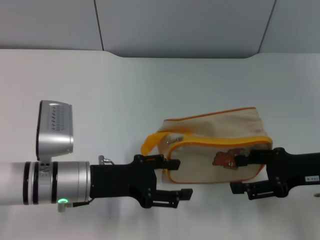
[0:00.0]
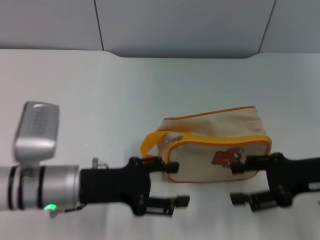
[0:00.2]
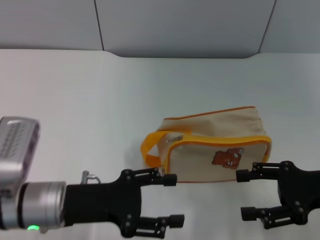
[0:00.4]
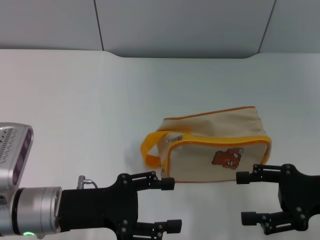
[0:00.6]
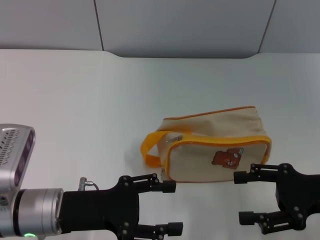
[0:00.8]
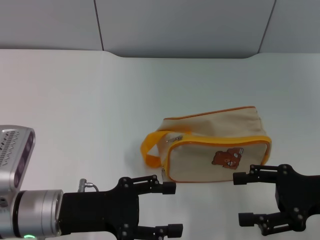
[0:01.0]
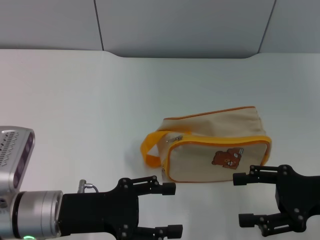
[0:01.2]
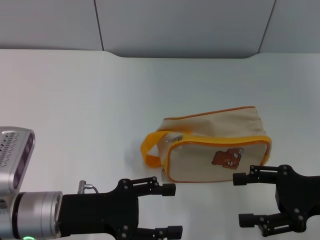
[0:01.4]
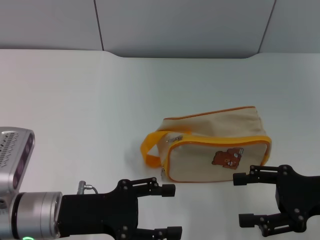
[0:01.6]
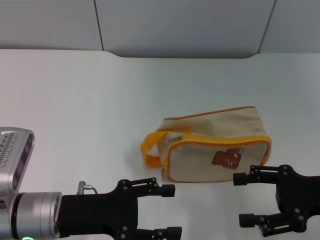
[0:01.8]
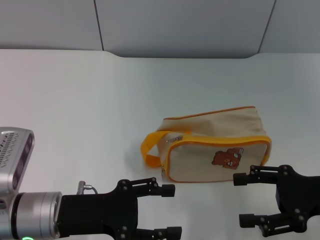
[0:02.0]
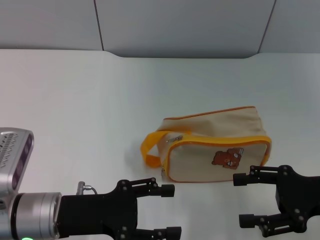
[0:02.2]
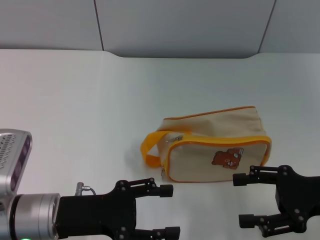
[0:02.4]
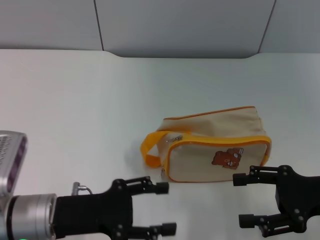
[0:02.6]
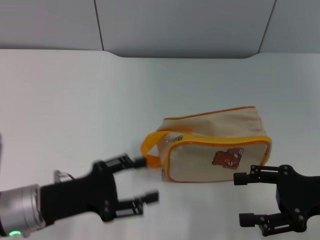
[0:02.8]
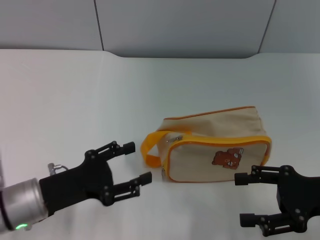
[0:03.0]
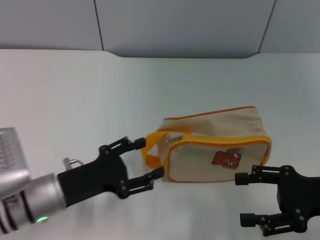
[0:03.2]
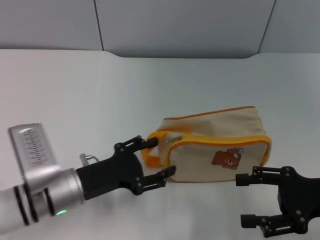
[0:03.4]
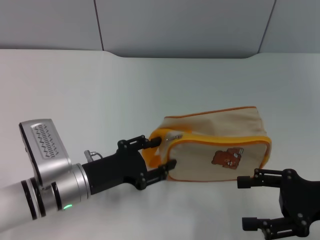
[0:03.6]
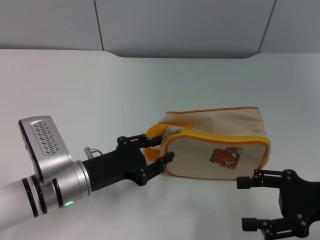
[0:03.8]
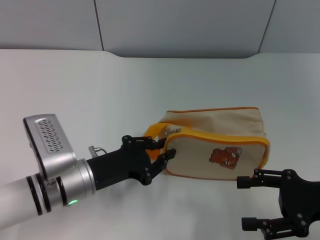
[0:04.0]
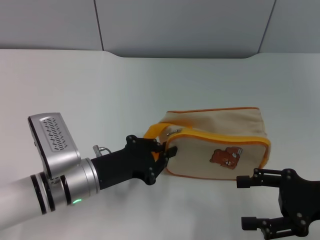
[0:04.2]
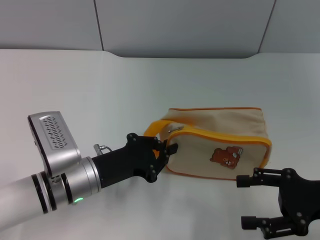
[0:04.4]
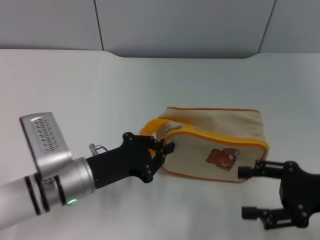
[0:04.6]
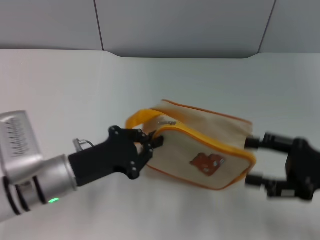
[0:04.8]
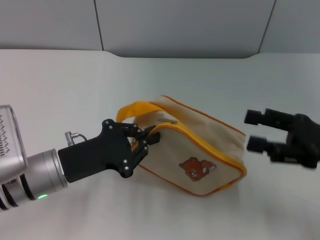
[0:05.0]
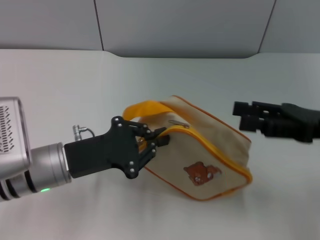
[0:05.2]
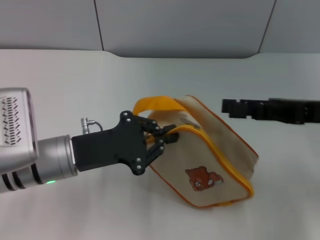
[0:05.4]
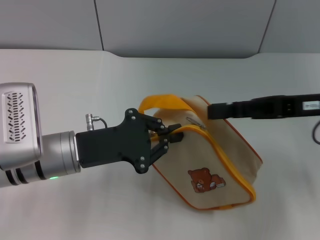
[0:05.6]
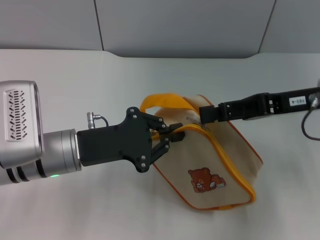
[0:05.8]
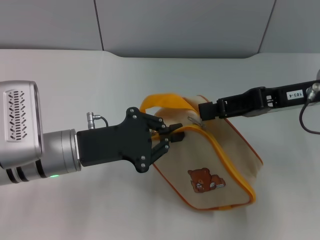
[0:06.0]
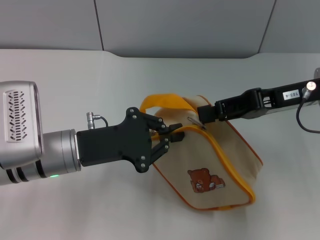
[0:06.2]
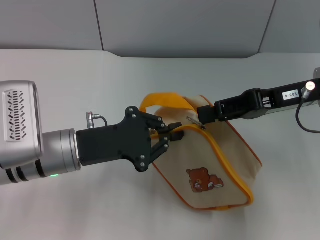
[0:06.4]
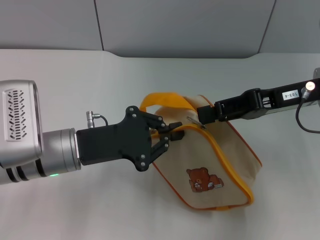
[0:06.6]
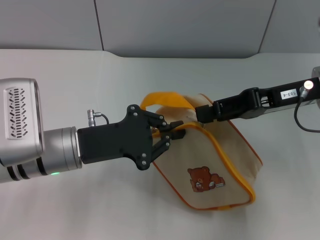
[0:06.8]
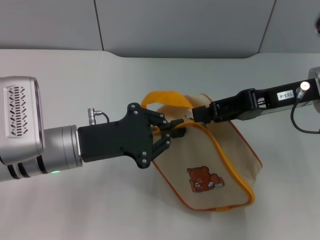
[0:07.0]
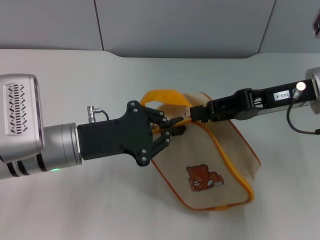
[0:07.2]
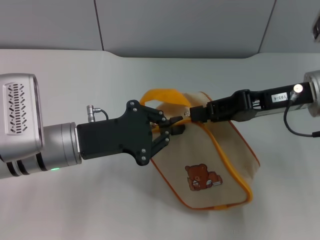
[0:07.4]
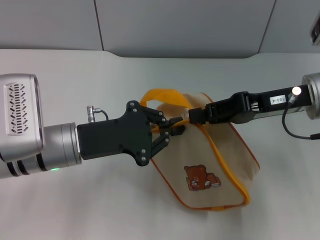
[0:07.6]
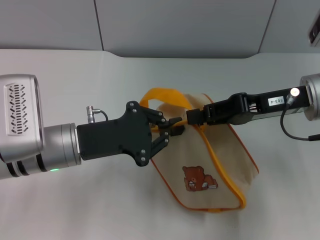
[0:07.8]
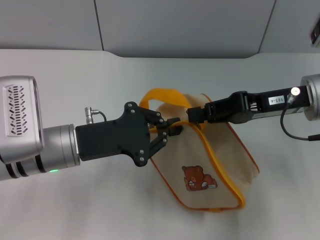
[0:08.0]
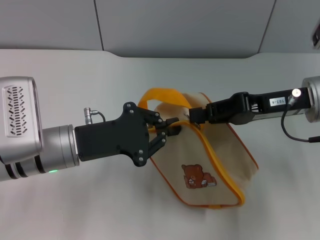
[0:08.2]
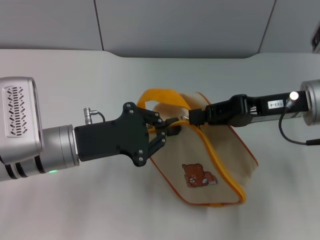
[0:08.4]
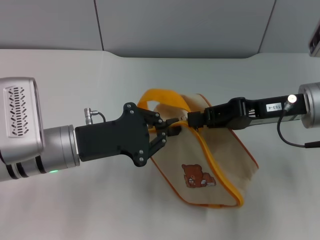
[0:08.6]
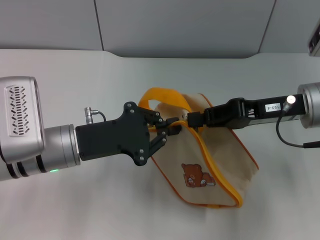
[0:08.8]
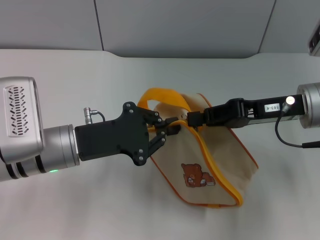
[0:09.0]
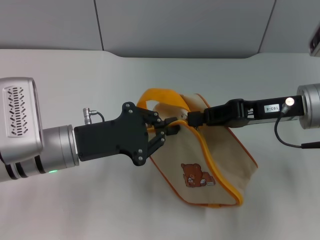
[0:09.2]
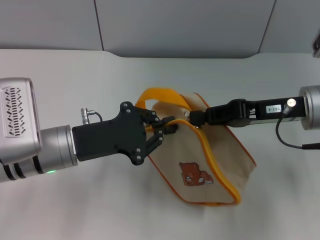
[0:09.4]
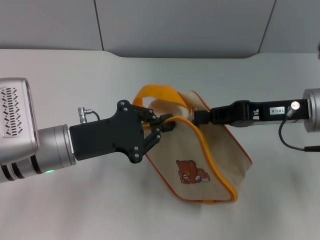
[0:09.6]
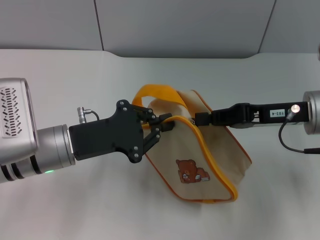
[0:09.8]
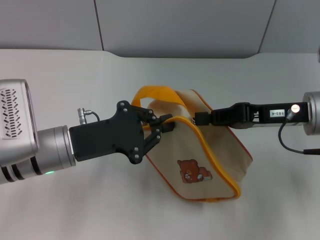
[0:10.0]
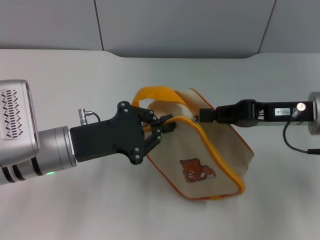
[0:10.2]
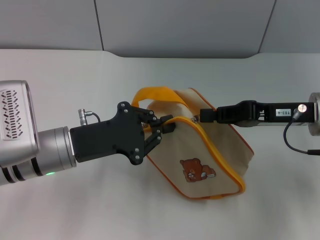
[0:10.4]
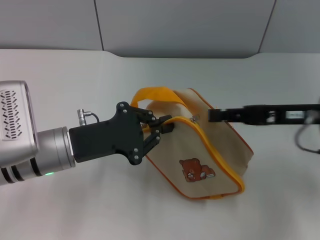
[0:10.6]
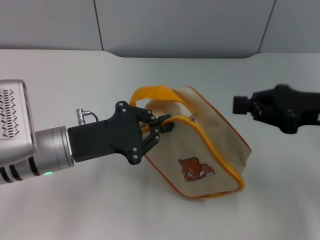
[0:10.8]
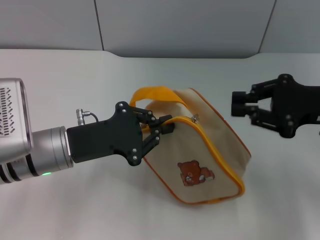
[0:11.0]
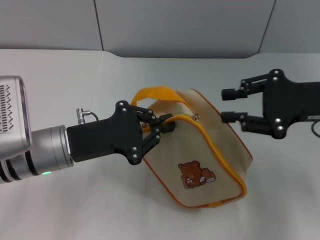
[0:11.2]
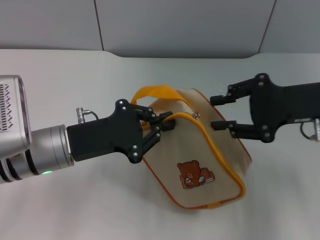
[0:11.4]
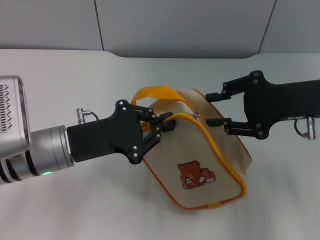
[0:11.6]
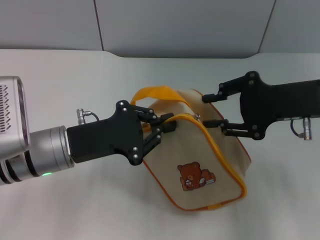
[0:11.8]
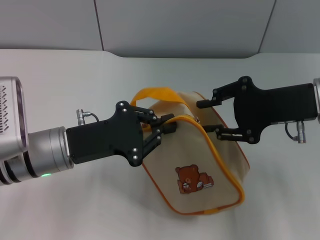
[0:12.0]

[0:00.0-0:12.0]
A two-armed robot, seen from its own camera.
Step, 0:00.0 to 0:04.8: Pick up the bag with left gripper.
0:00.0 to 0:01.6: The left gripper shifts by about 5 cm.
0:03.0 to 0:04.4: The left gripper moves to the right, about 5 cm, and closes.
0:04.4 to 0:06.0: The right gripper travels forward, upward and to the left by some 15 cm, and closes up; the left gripper is displaced upward by about 5 cm.
0:06.0 to 0:10.4: The grippers make only small movements.
0:10.4 to 0:12.0: The right gripper opens.

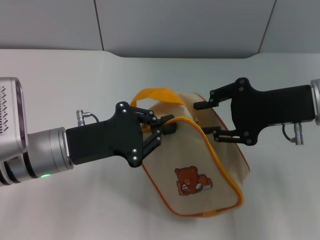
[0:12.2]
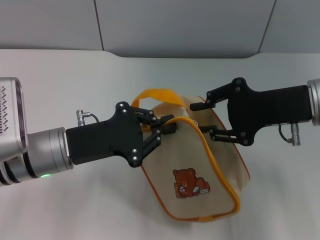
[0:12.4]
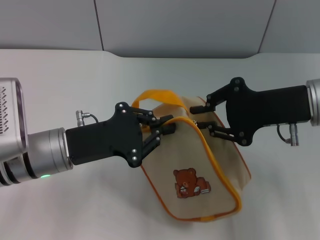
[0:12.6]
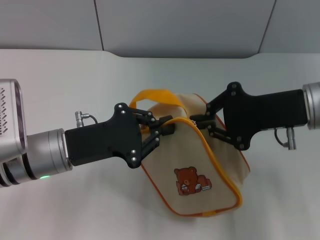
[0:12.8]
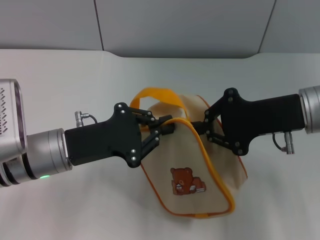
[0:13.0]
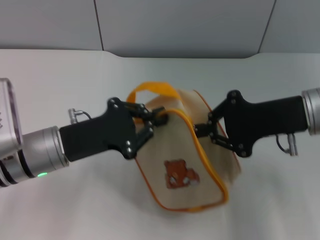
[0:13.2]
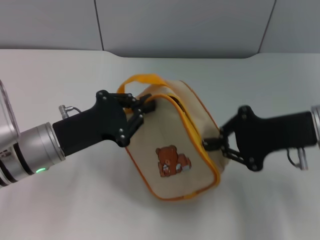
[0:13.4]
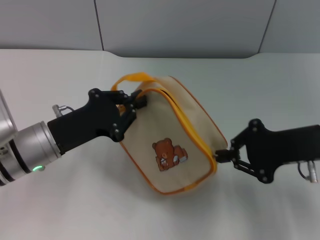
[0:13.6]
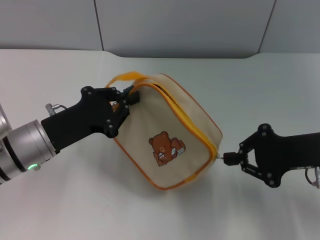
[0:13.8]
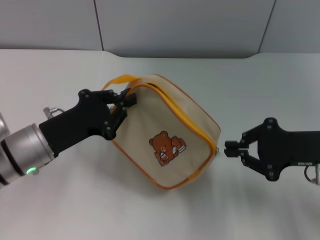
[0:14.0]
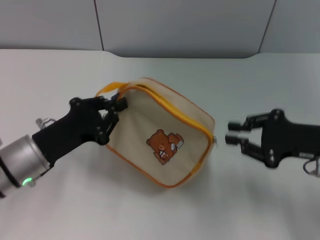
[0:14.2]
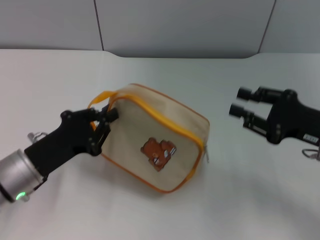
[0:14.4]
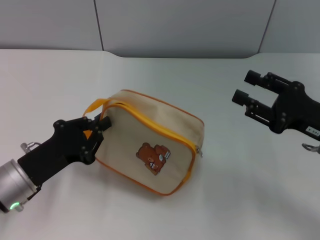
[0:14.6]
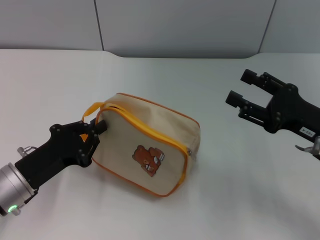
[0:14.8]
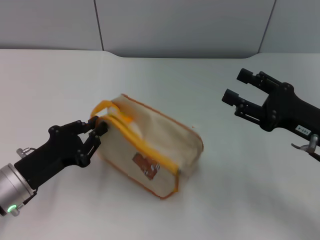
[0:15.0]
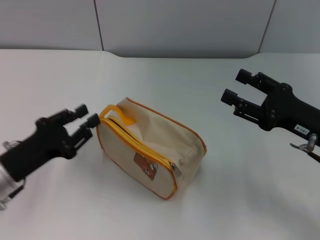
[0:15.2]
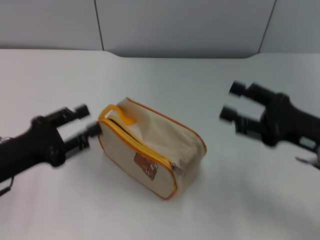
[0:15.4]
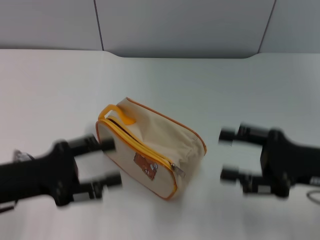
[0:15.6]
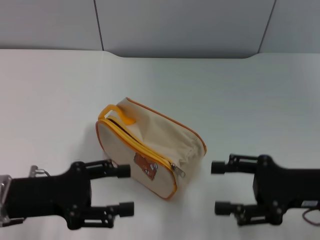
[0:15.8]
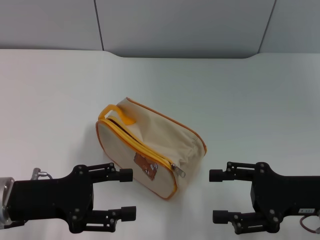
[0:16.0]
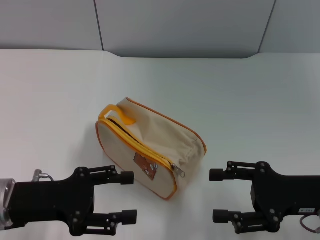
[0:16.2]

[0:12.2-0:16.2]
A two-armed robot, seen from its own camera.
Step, 0:14.2 to 0:15.2: Place the bag on the table with left gripper.
0:12.2 to 0:13.6: The right gripper shifts by about 5 cm, and closes.
0:13.6 to 0:14.8: The right gripper ends up some 5 cm from where it was, and opens up. The left gripper travels backward by roughly 5 cm.
0:14.8 to 0:16.2: The left gripper opens up.
